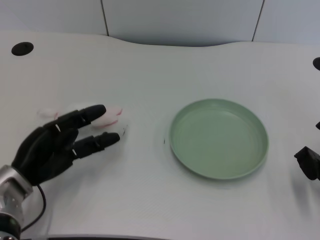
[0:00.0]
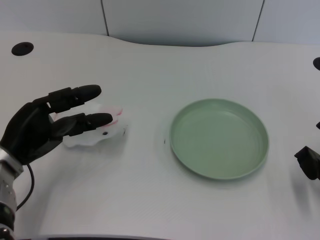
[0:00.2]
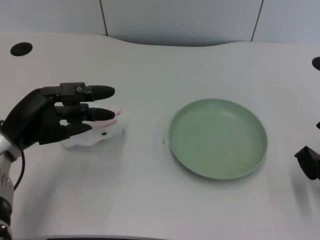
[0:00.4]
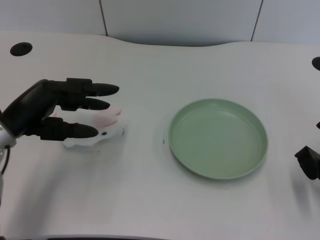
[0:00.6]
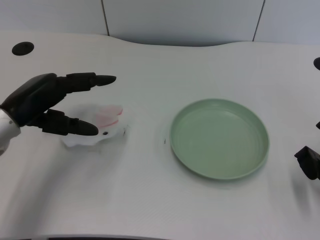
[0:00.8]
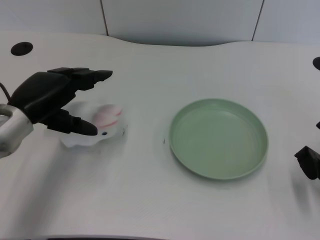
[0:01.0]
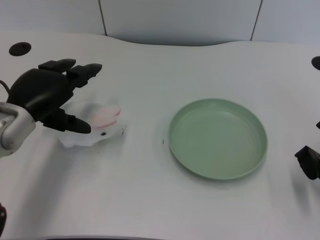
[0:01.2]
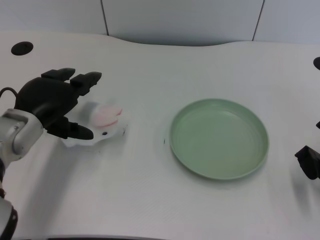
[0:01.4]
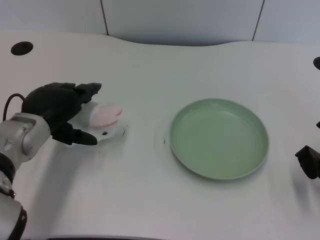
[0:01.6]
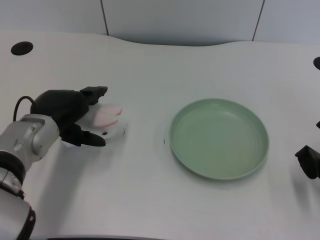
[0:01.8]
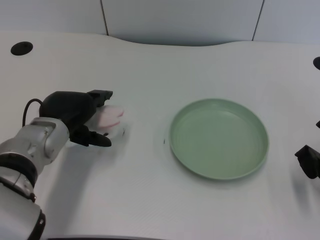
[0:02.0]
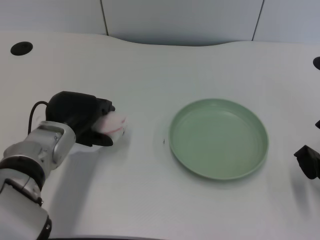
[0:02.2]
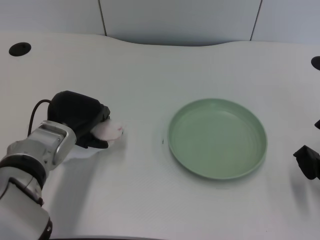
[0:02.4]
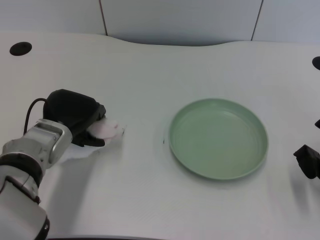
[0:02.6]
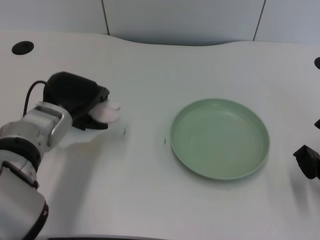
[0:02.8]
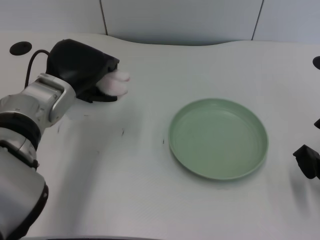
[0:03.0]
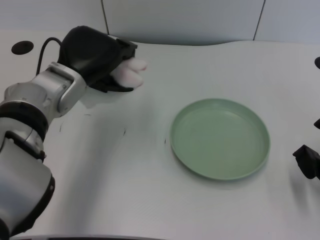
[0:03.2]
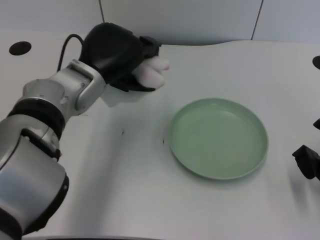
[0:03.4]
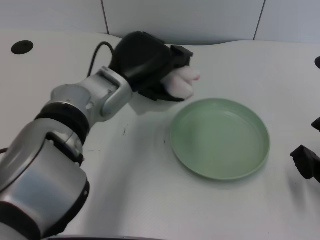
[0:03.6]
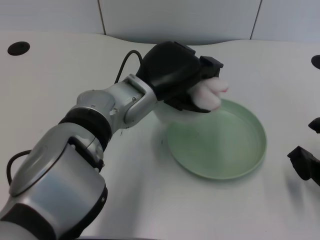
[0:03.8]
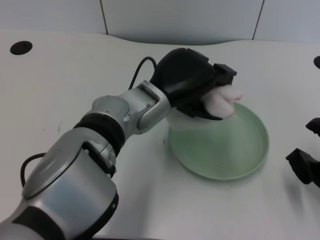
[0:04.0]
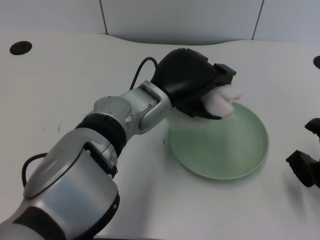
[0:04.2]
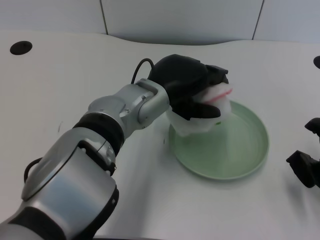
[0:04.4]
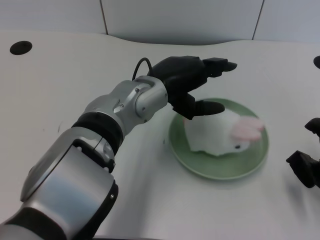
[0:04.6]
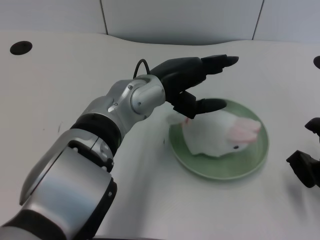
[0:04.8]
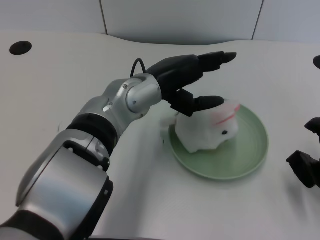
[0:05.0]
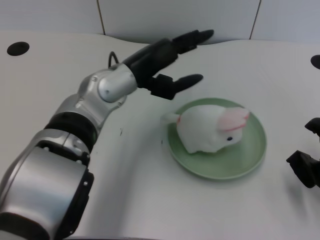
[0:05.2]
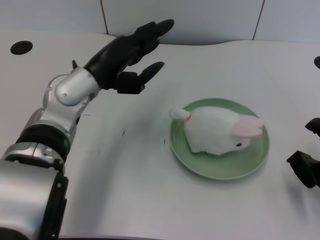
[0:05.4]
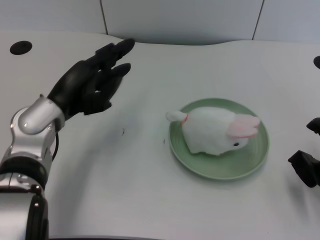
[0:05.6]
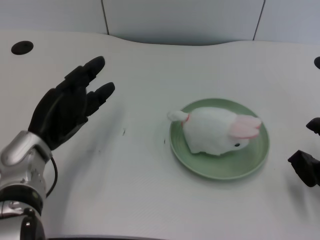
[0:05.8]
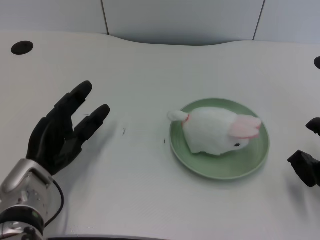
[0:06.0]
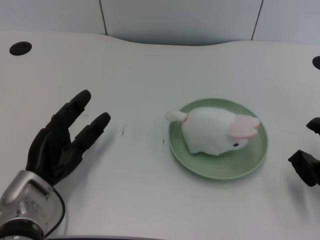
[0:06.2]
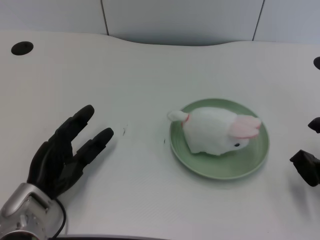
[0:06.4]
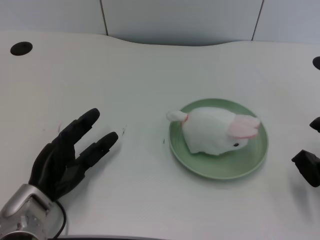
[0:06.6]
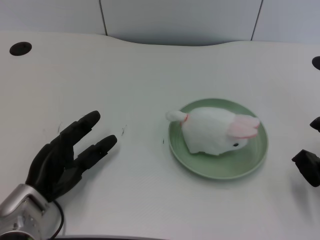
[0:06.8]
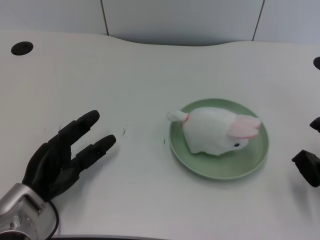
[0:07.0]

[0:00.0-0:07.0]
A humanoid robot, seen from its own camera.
Task of the whole recording: pick up the rabbit doll from the table and place it on the plate.
Step, 0:00.0 to 0:02.6: Grasp the rabbit doll with the left gripper.
Step, 0:02.8 to 0:04.6: Place the rabbit doll into the plate with the left gripper.
0:01.4 to 0:02.8: There are only small adjustments of the hands.
0:02.8 to 0:04.2: The left hand travels to the right by approximately 15 cm.
0:04.2 to 0:05.6: The left hand travels to the left by about 15 cm.
0:05.6 to 0:07.0: The left hand heads downward and backward, covering about 15 cm.

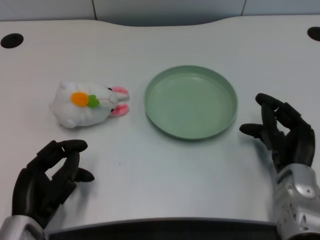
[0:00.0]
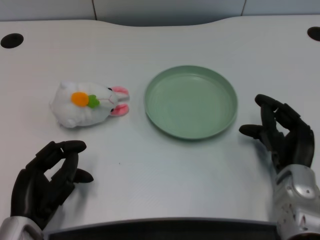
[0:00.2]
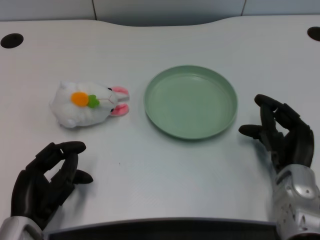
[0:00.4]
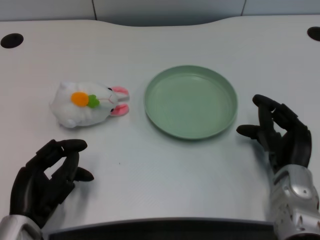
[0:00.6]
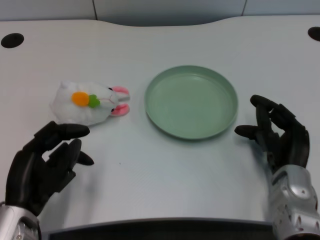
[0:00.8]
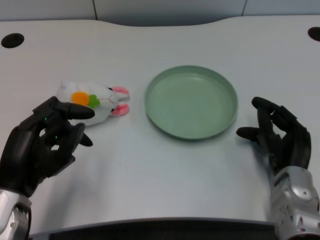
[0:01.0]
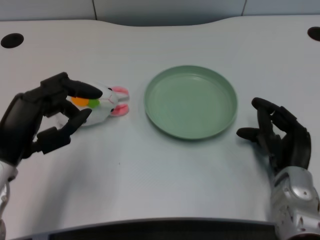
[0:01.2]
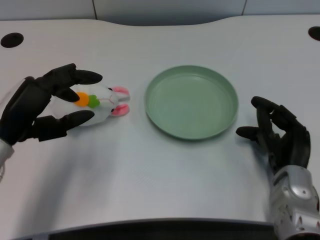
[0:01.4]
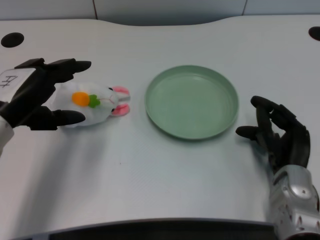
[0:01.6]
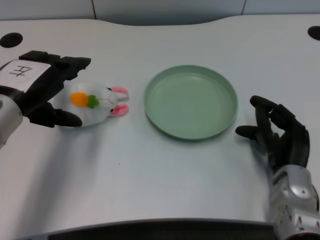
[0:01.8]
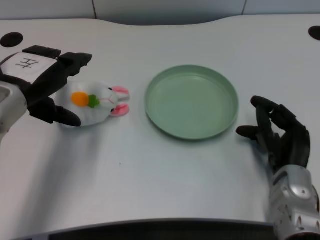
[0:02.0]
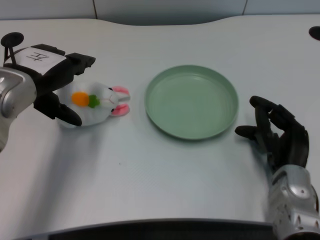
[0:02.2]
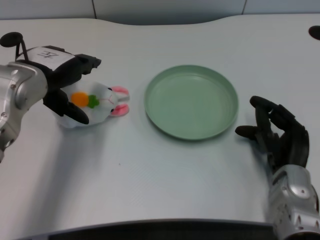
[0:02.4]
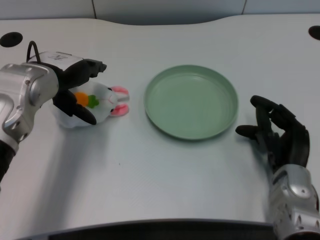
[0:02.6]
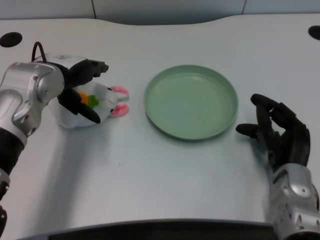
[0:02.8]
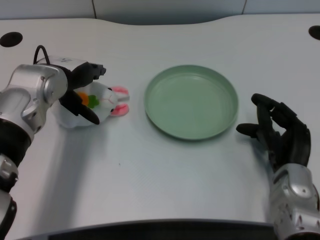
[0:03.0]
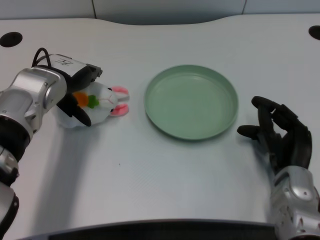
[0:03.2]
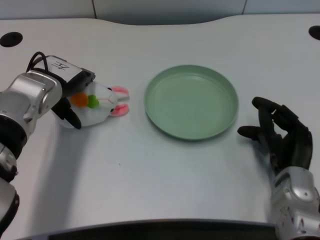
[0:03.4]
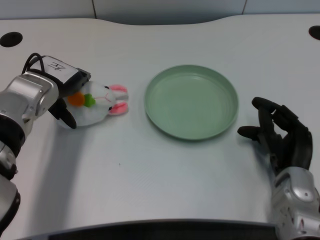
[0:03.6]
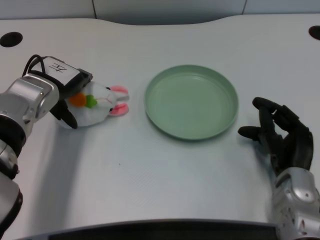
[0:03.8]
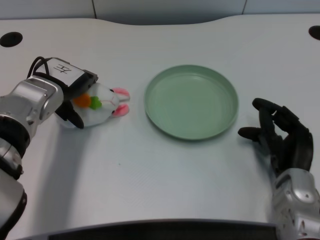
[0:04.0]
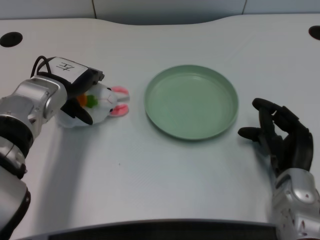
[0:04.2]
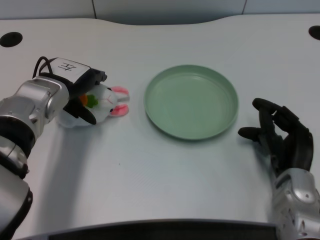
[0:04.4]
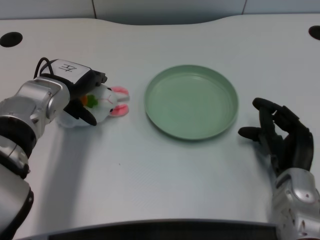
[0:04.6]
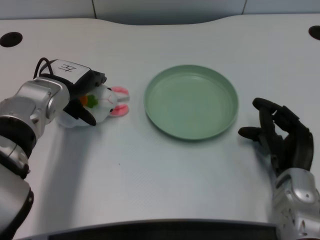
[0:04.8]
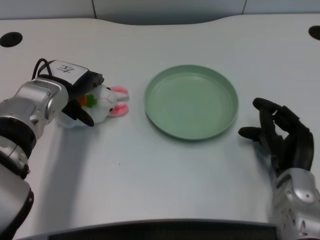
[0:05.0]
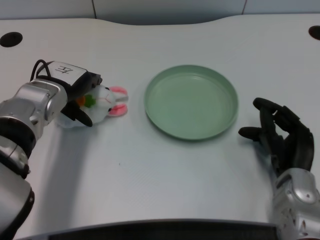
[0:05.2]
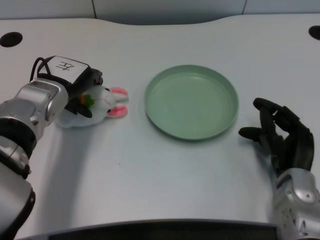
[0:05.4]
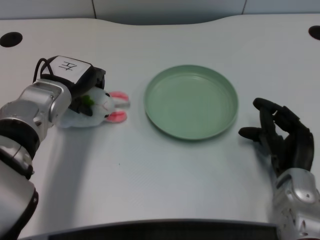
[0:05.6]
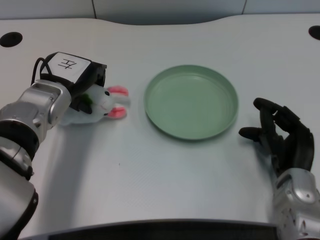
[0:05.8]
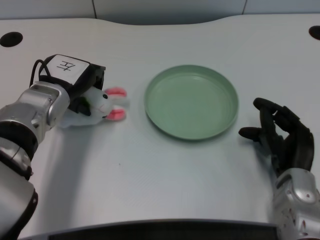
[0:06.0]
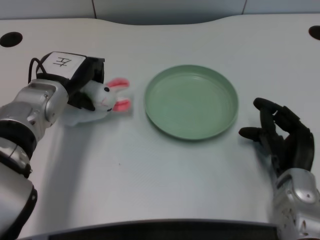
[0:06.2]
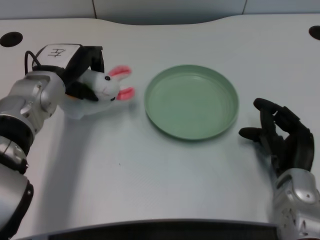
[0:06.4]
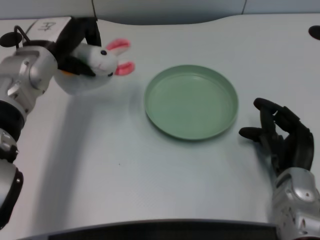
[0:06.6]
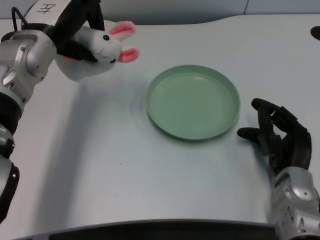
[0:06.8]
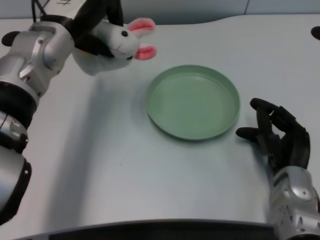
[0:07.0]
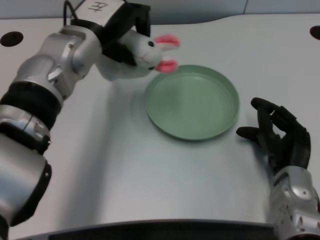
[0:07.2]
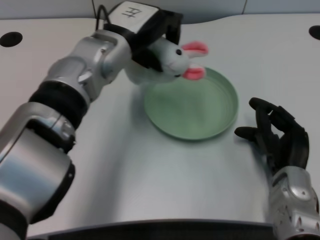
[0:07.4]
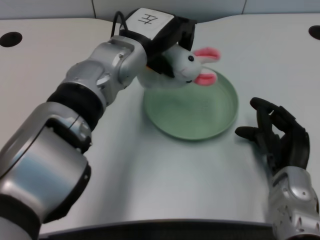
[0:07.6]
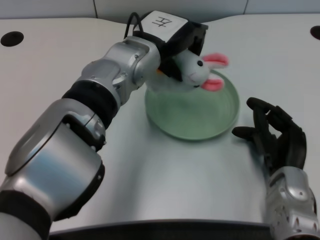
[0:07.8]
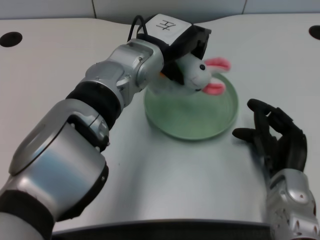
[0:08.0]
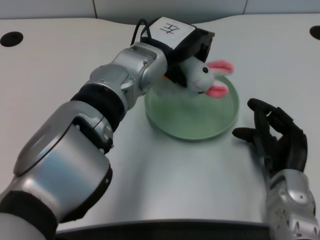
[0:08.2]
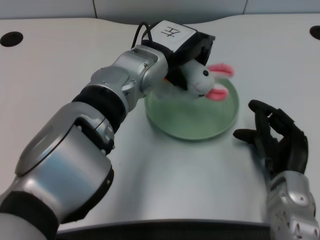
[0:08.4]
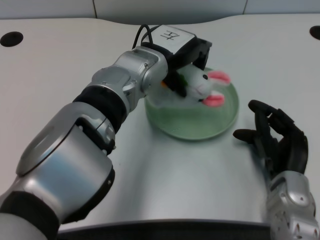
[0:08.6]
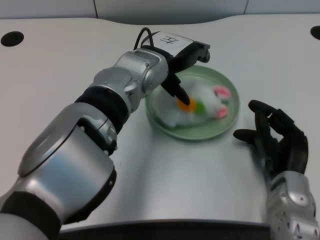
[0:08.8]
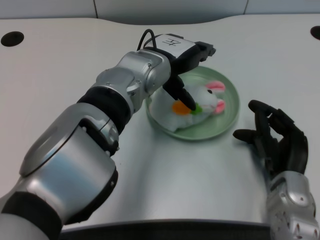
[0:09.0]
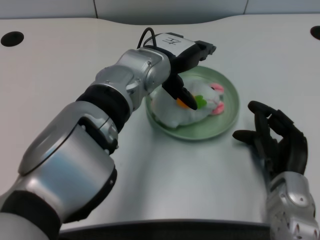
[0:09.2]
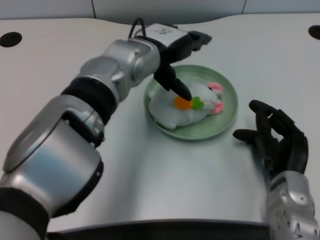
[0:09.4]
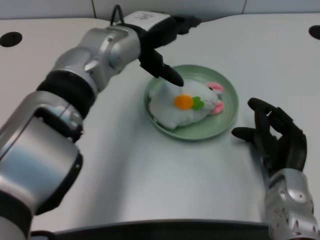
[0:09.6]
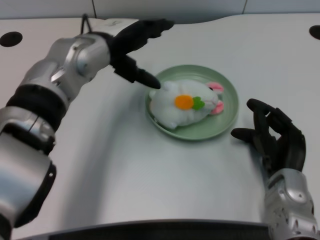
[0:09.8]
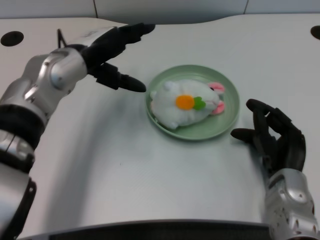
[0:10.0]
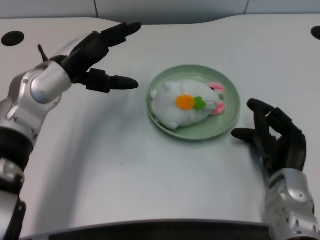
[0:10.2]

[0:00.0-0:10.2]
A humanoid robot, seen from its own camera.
Task of the whole recording: pick up the rabbit doll from the table and place it on the plate.
Step, 0:00.8 to 0:06.2: Grasp the rabbit doll with the left gripper.
Step, 0:06.4 to 0:08.8: Place the rabbit doll into the plate with the left gripper.
0:01.4 to 0:03.0: The left hand shifts roughly 10 cm forward.
0:03.0 to 0:04.4: The hands make only small movements.
0:04.4 to 0:05.8: There are only small adjustments of the hands.
0:05.8 to 0:07.2: The left hand shifts roughly 10 cm upward and to the right.
0:07.2 to 0:08.8: The left hand shifts approximately 10 cm to the right.
0:08.8 to 0:10.2: The left hand shifts about 15 cm to the left.

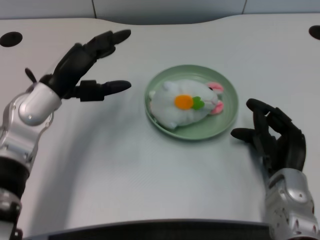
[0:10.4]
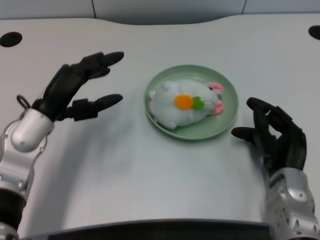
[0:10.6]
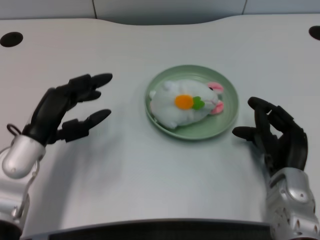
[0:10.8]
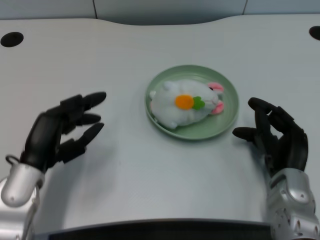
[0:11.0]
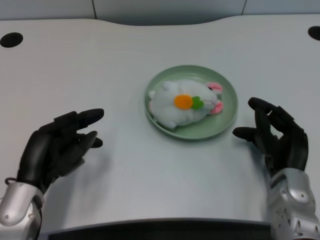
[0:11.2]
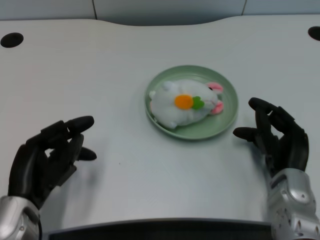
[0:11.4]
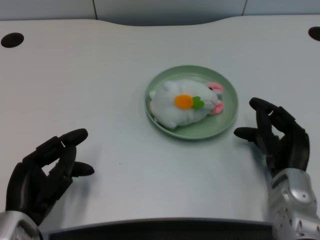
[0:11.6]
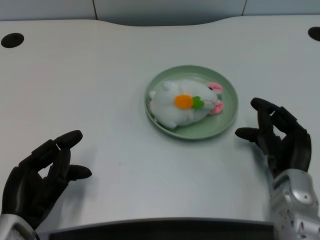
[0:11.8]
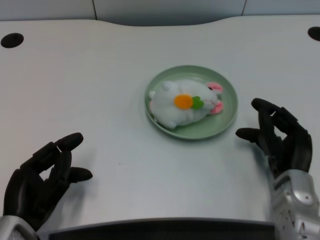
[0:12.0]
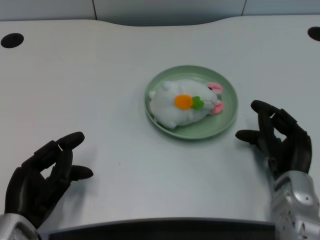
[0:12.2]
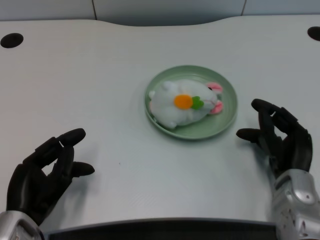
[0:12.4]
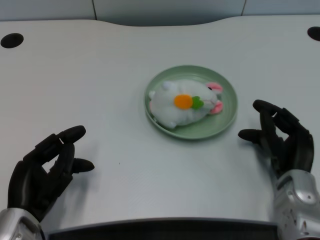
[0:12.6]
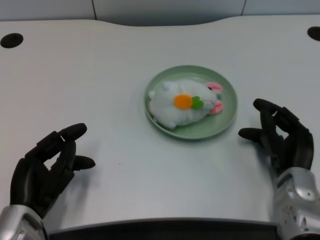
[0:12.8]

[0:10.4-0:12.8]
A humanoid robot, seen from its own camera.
Task of the whole recording: pick up the rabbit doll from the table and place it on the plate.
0:10.4 to 0:11.6: The left hand heads backward and downward, covering about 15 cm.
0:11.6 to 0:12.8: The hands make only small movements.

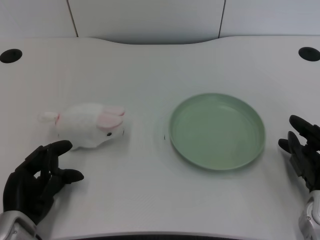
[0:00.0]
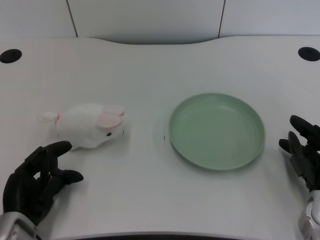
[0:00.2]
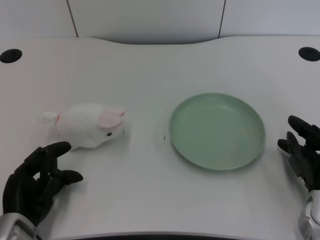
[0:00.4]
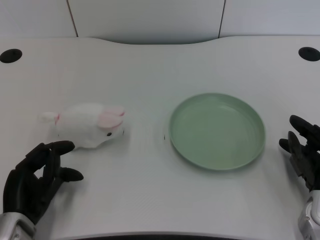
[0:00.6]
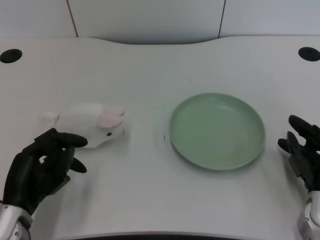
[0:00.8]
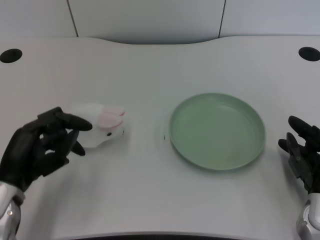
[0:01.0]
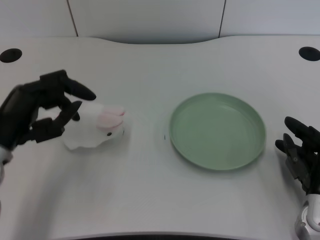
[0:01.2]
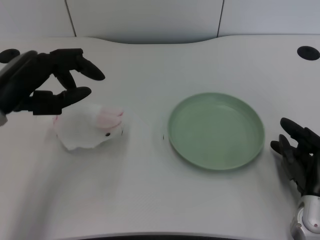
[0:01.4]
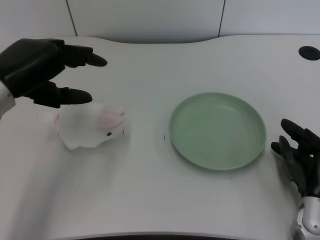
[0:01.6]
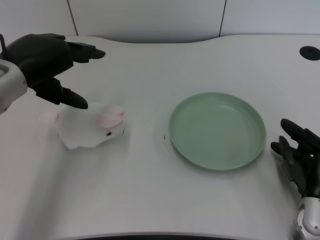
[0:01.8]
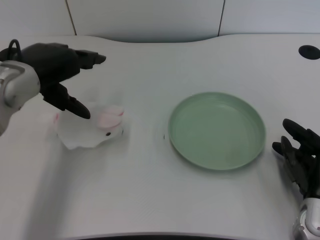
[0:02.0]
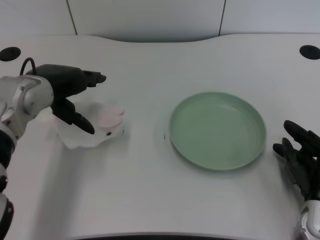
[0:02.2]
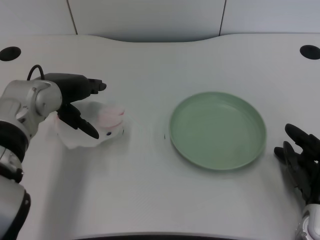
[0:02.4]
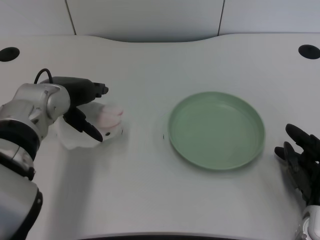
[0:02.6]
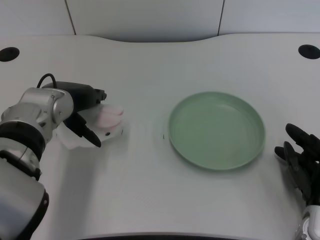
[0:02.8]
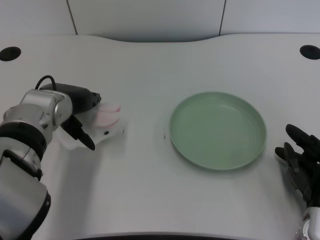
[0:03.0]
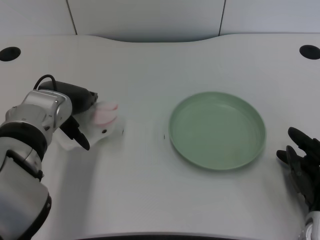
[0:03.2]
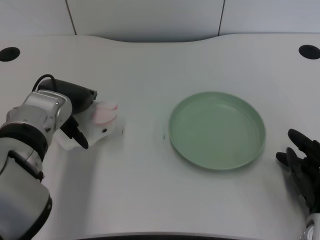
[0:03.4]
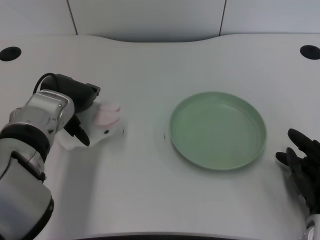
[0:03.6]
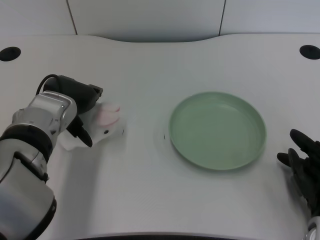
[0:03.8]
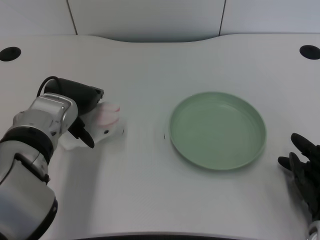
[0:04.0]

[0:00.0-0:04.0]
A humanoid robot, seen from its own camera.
Task of the whole recording: pick up the rabbit doll from the table and place it on the plate.
0:01.4 to 0:02.6: The left hand travels to the right and forward by about 10 cm.
0:02.6 to 0:04.0: The hands make only small movements.
